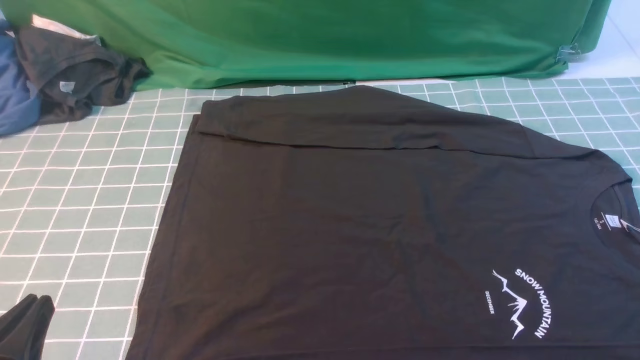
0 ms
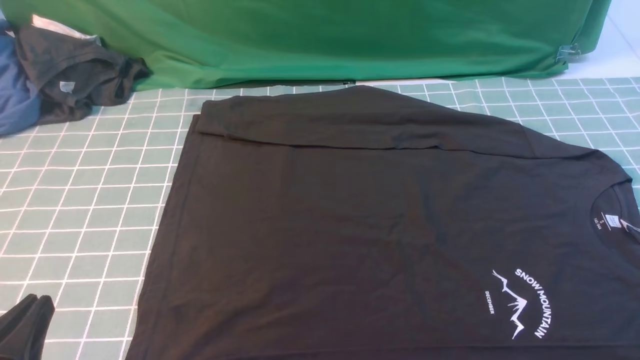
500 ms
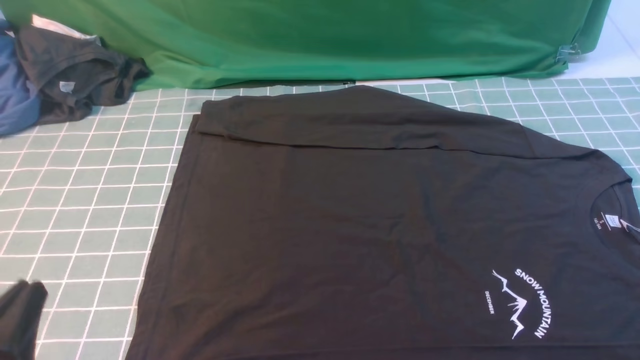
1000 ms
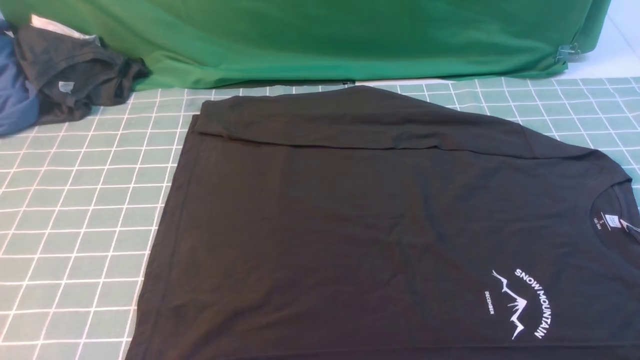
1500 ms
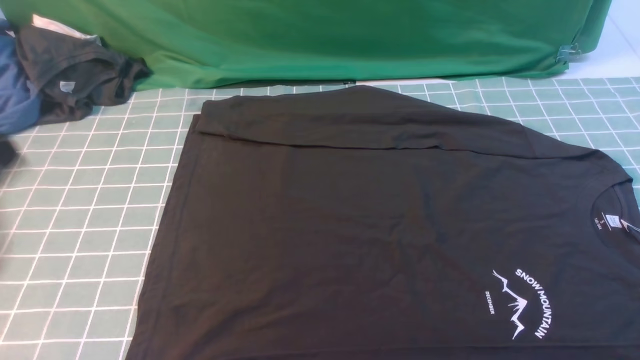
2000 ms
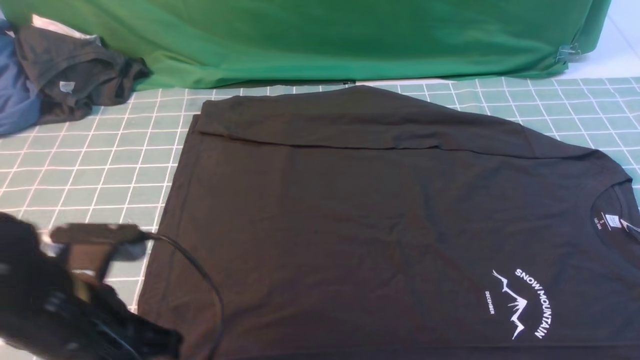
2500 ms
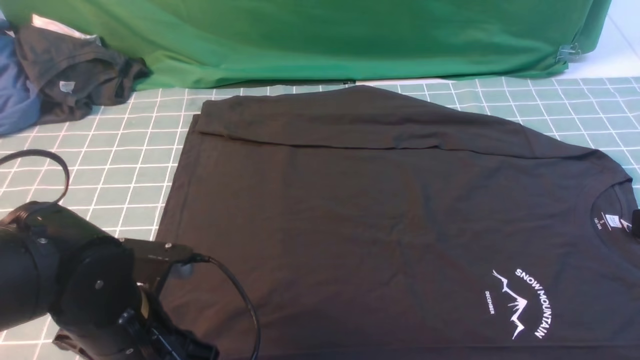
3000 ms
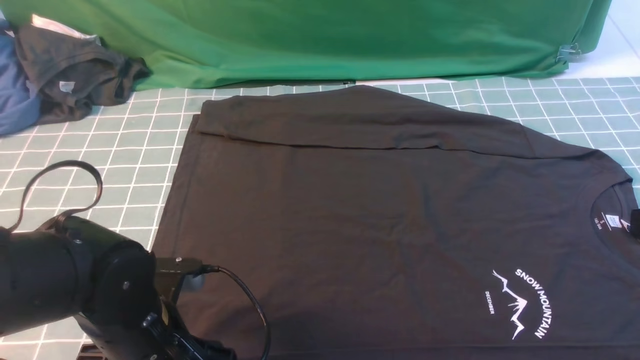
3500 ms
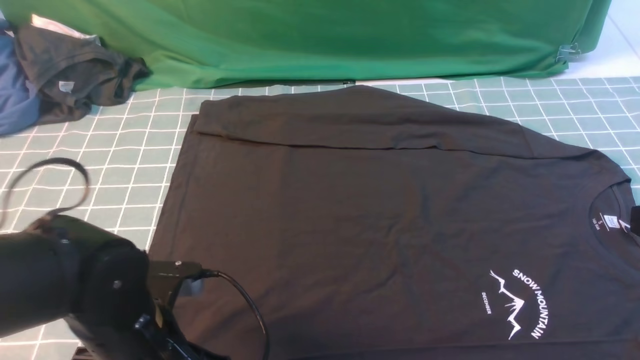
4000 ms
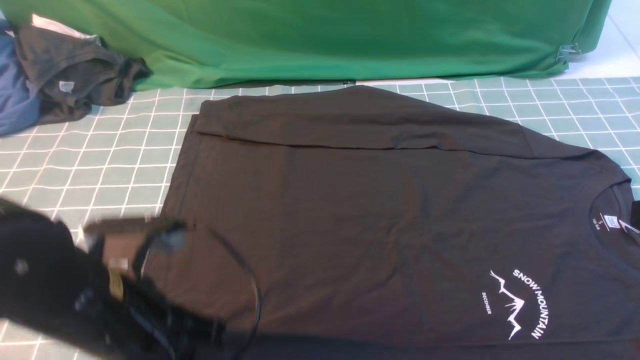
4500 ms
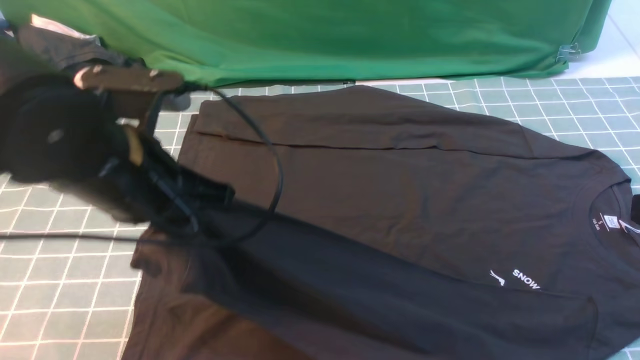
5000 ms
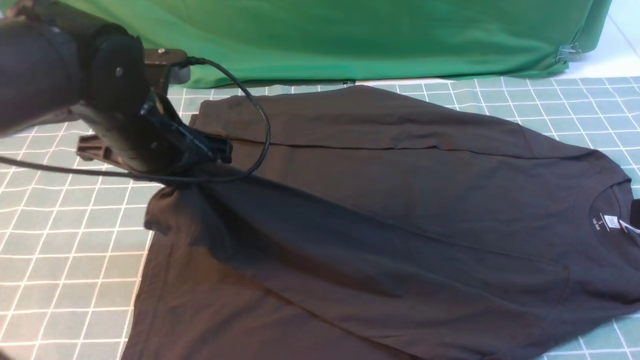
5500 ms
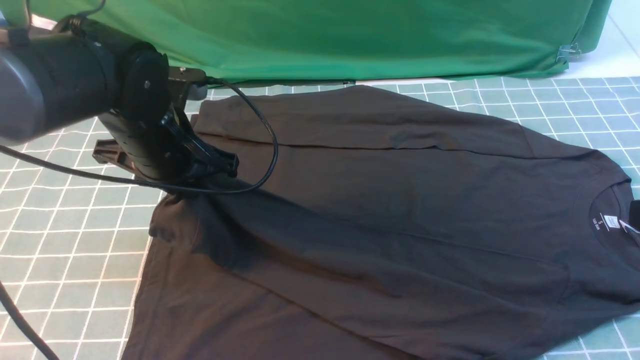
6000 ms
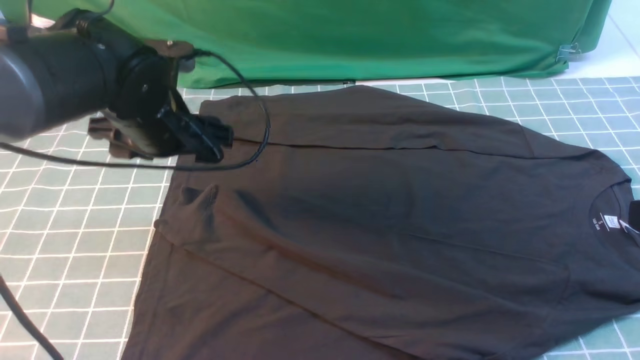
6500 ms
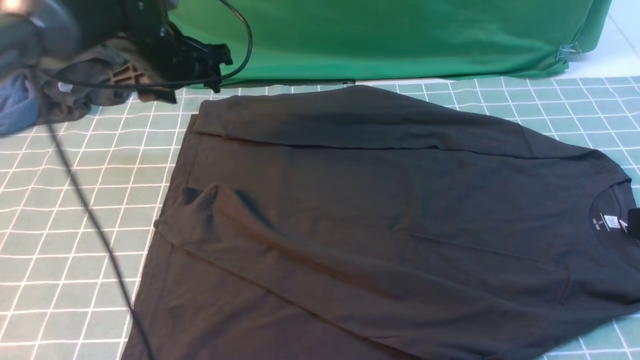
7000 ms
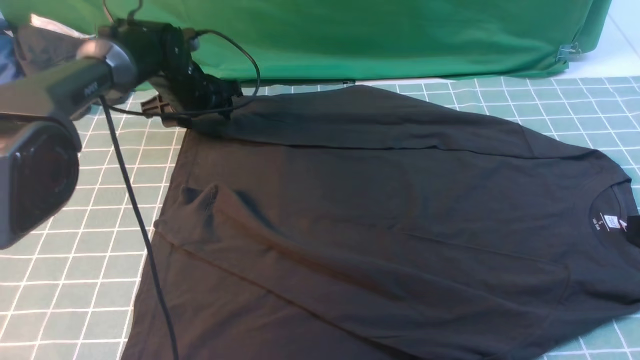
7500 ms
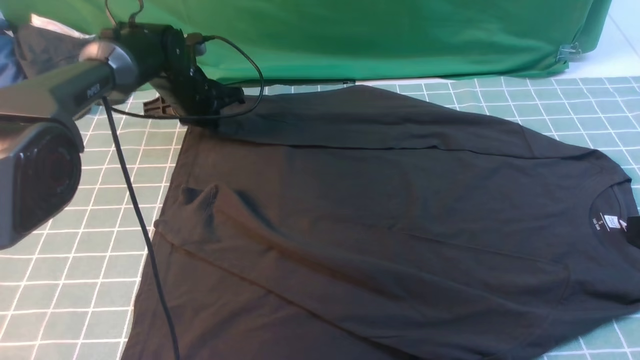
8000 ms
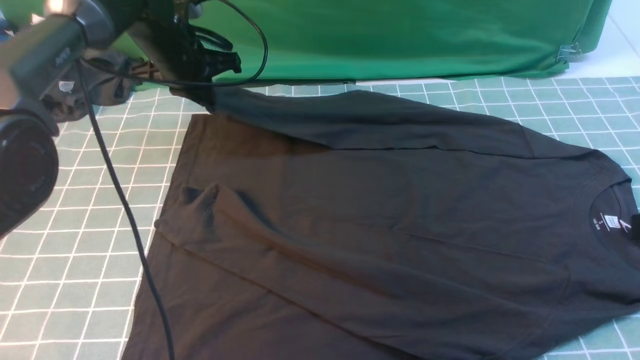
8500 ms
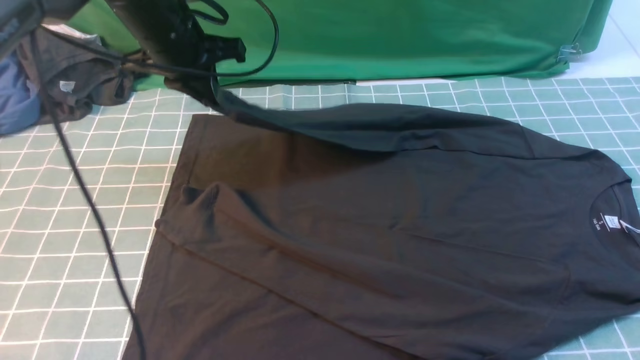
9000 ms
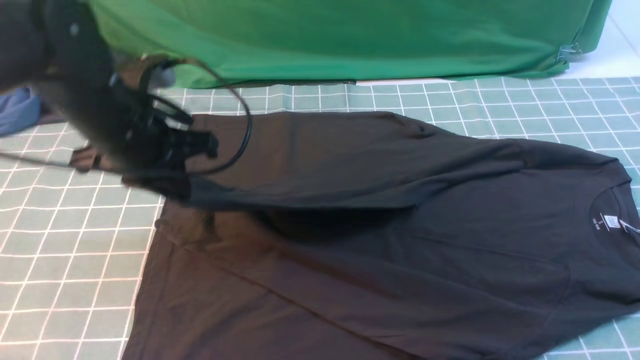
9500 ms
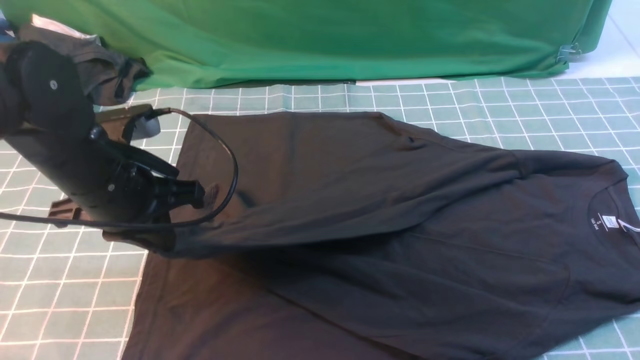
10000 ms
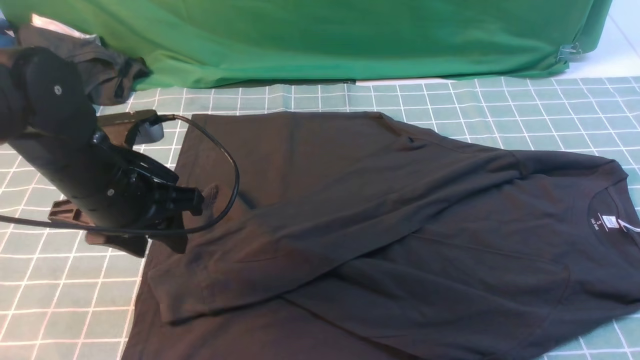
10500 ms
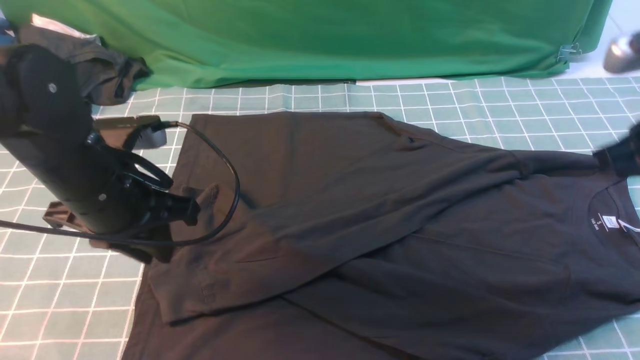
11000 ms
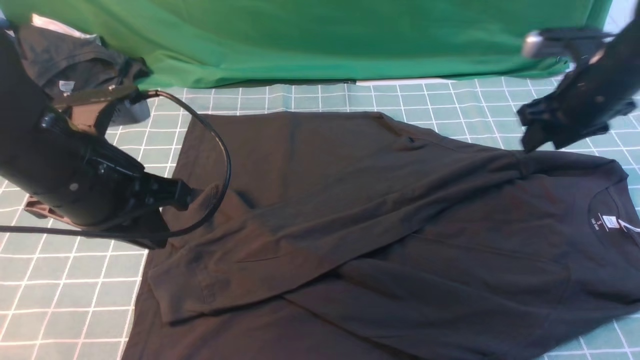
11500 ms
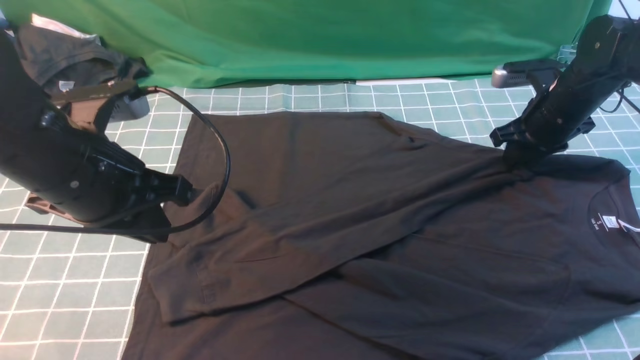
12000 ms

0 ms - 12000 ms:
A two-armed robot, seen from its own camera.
Step, 0 ms - 4500 ms: use the left arm to clamp the cuff closest to it.
Step, 5000 ms - 6500 ms: use the left arm to drag and place the cuff at the centered position on the left edge of the fabric.
Step, 7000 ms - 8000 ms: use the left arm to clamp the cuff farthest from it.
Step, 8500 ms - 10500 ms: use the left arm to drag and drop the cuff onto the cuff closest to the left arm.
0 ms - 2000 ms: The left gripper goes approximately 15 cm upward and forward.
2000 ms - 4000 ms: The left gripper heads downward and to the right, covering roughly 20 cm, and opens and closes again, while the right gripper moves upward, forward and to the left, about 10 cm, and closes.
4000 ms - 6000 ms: The left gripper moves forward and upward, roughly 20 cm.
6000 ms - 8000 ms: The left gripper goes about 20 cm forward, and opens, then closes once more.
8000 ms - 10000 ms: The left gripper travels backward by approximately 25 cm.
10000 ms - 12000 ms: The left gripper ends up roughly 5 cm from where it was, and opens, then closes again, while the right gripper is displaced forward and downward by roughly 35 cm, and opens.

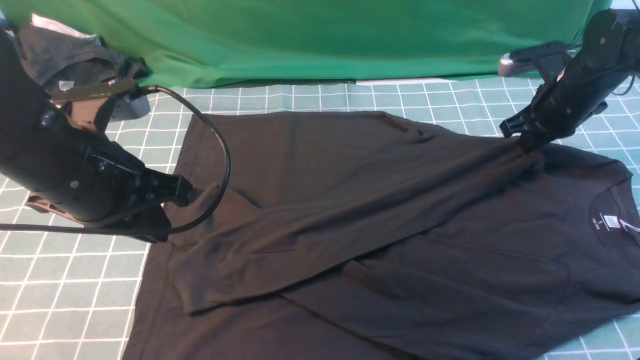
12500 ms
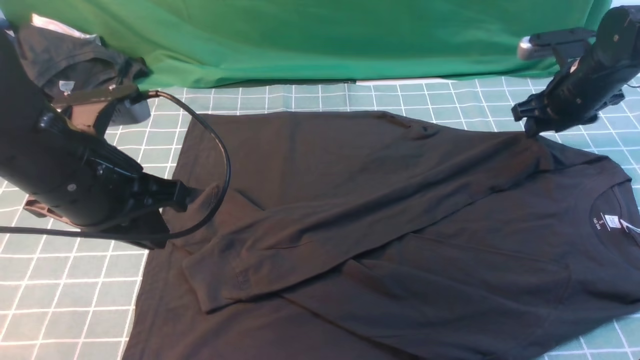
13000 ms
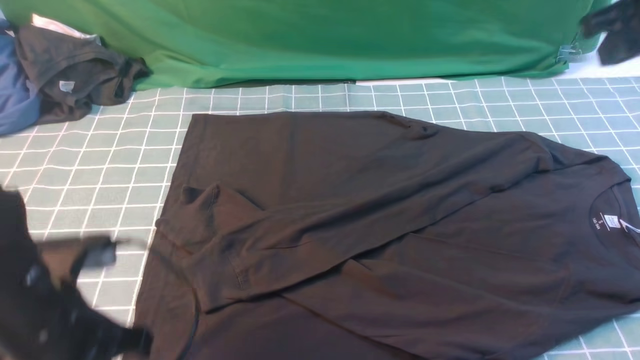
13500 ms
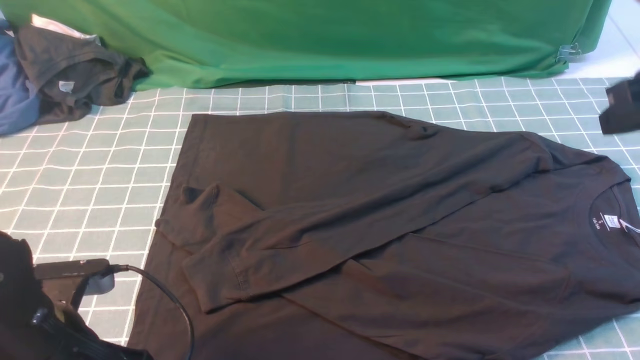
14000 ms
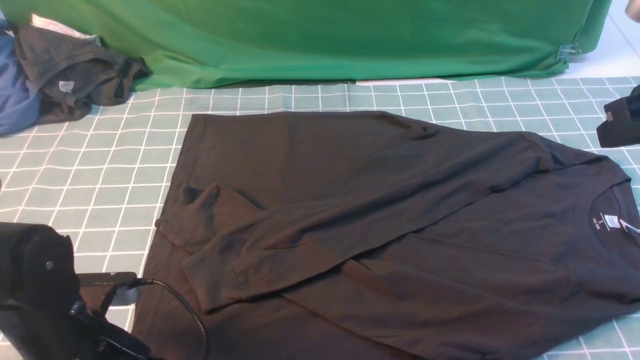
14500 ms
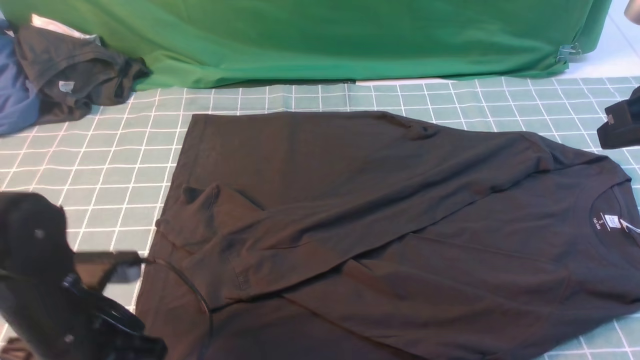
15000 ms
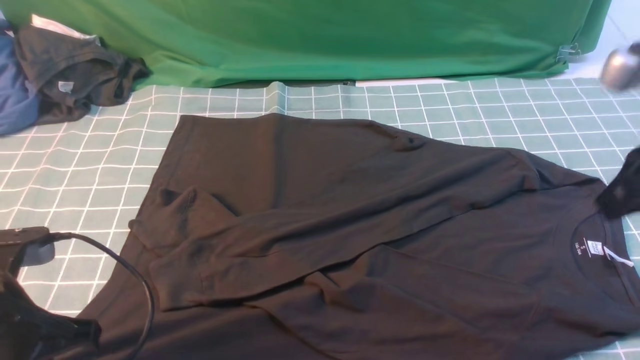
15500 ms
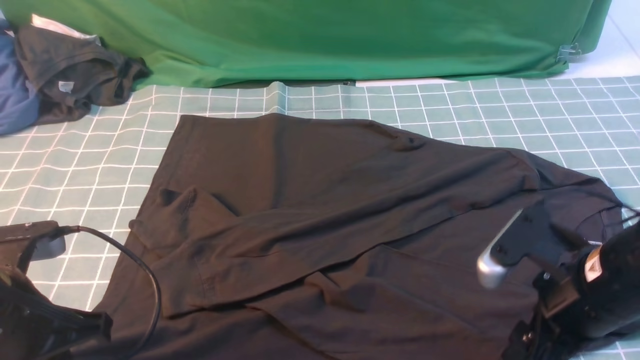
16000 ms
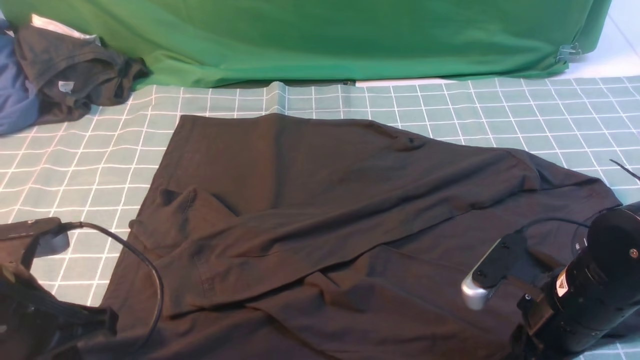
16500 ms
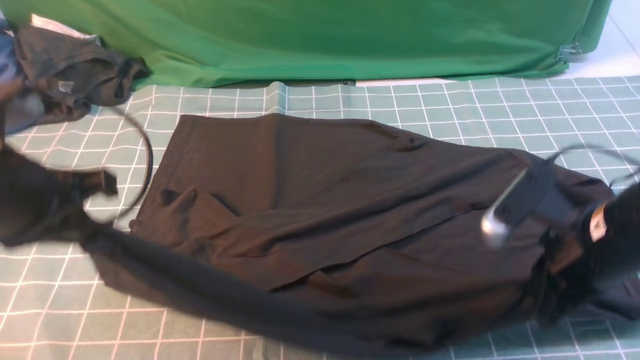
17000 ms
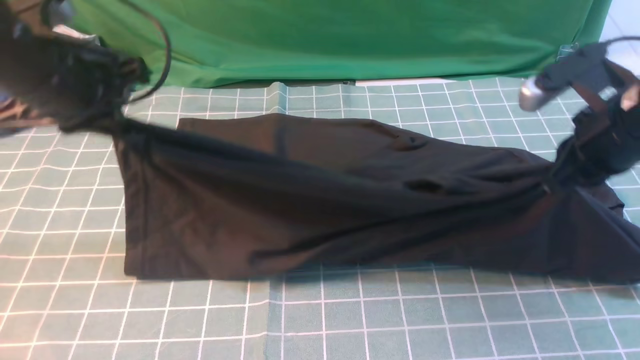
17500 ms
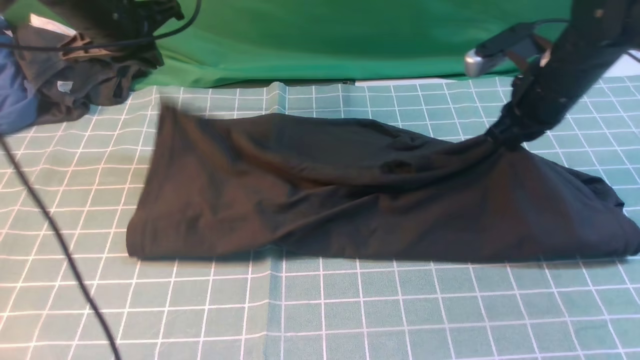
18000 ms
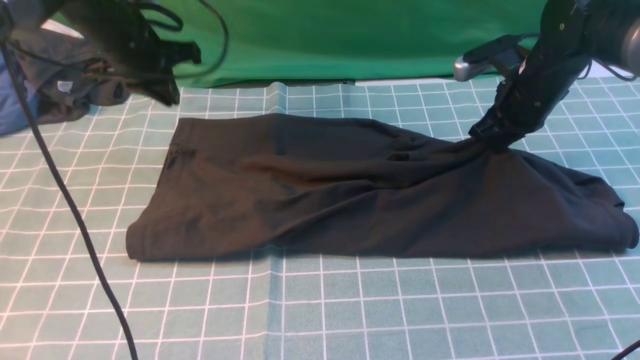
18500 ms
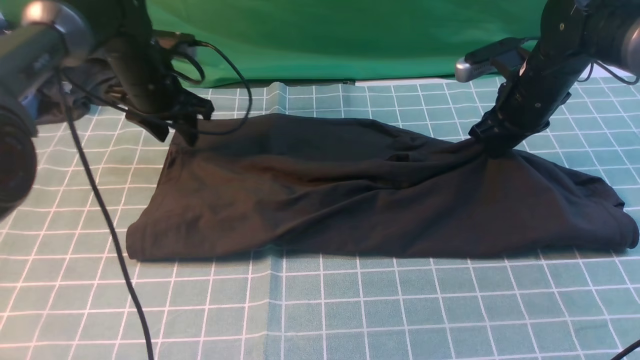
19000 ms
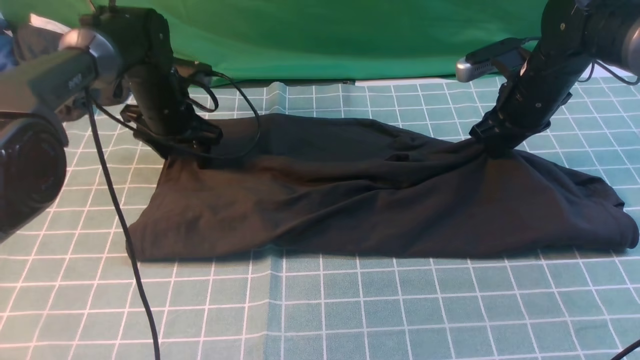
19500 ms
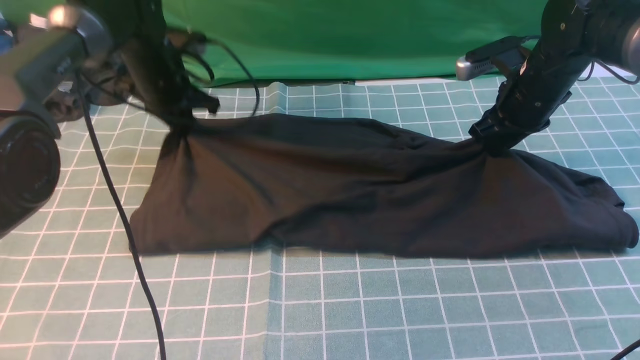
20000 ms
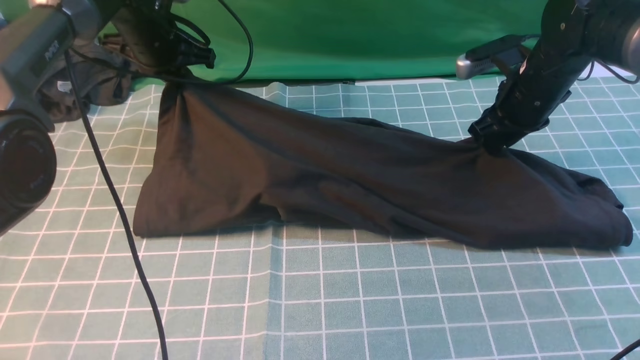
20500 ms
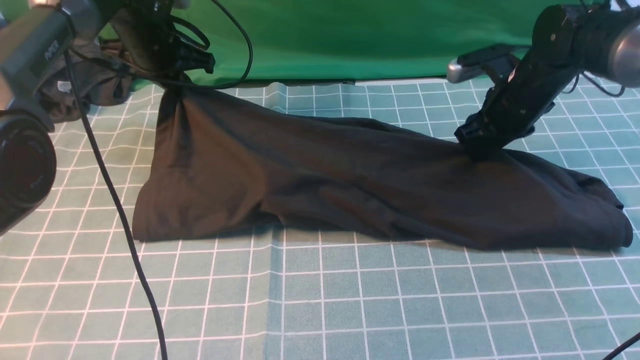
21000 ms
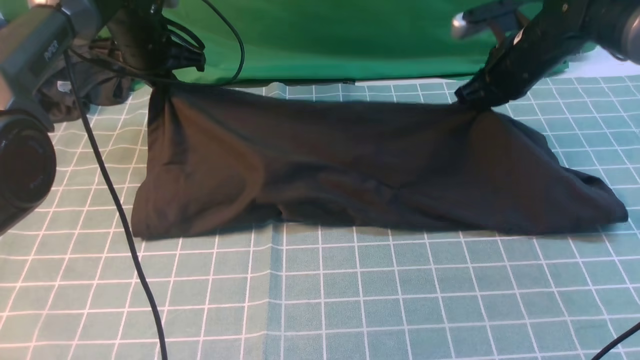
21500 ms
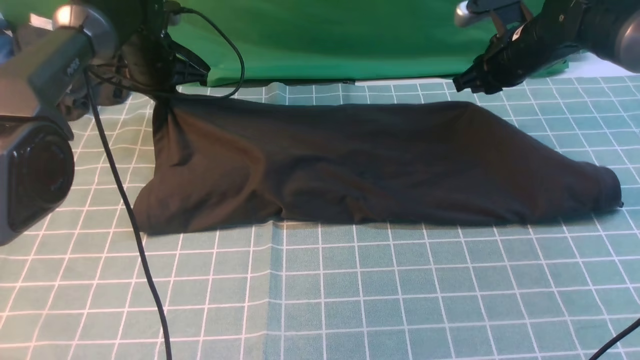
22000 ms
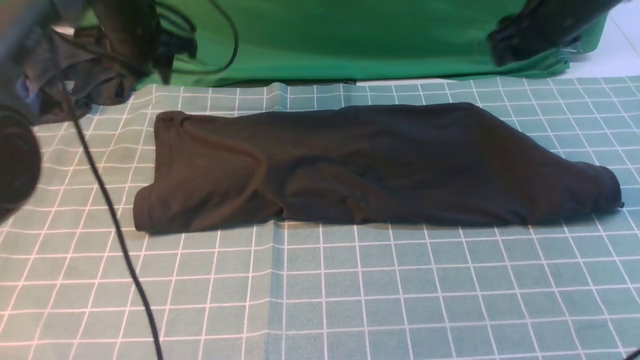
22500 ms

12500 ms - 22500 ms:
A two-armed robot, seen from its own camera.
Step, 12500 ms - 16500 ms: use both arms simultaneously to clamp the lower edge of the clothing fabric.
Step, 17000 ms - 22000 ms: use both arms to drag the lower edge of the fabric forward and fold it over the upper edge.
12500 ms - 14500 ms: The right gripper shifts roughly 25 cm backward and upward, and opens, then closes once more. Meanwhile the left gripper goes some 15 cm downward and backward, and opens.
14500 ms - 16500 ms: The left gripper moves upward, approximately 10 cm, and closes. Meanwhile the right gripper goes some 20 cm downward and to the left, and opens.
16500 ms - 18500 ms: The grippers both shift forward by some 30 cm.
18500 ms - 20500 ms: The left gripper moves roughly 10 cm downward and comes back, and opens, then closes again.
20500 ms - 22500 ms: The right gripper is displaced upward by about 10 cm, and closes and opens again.
